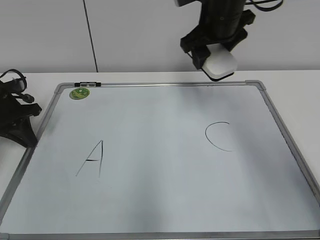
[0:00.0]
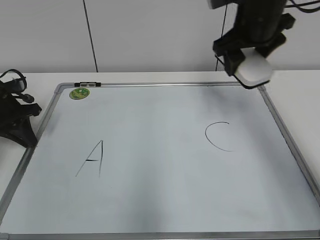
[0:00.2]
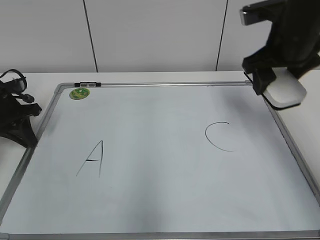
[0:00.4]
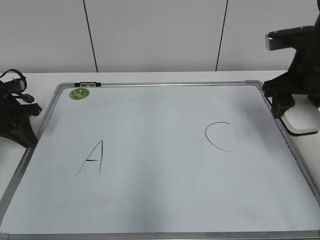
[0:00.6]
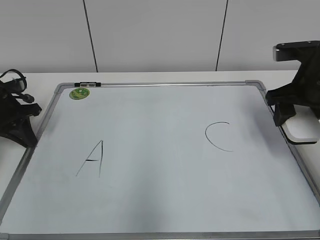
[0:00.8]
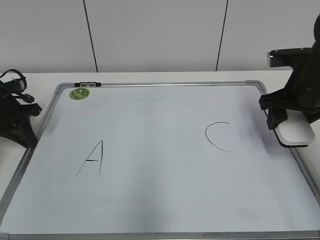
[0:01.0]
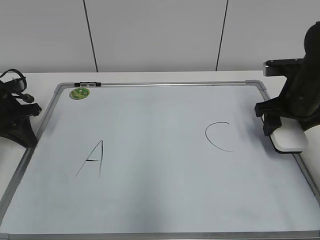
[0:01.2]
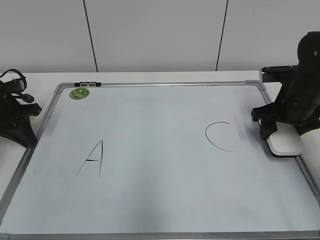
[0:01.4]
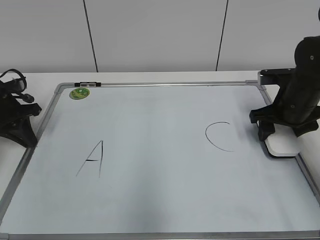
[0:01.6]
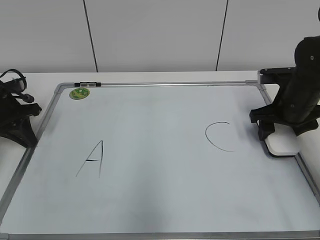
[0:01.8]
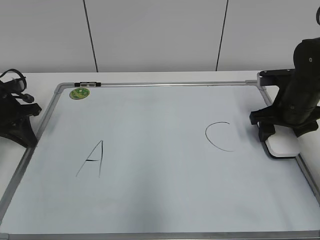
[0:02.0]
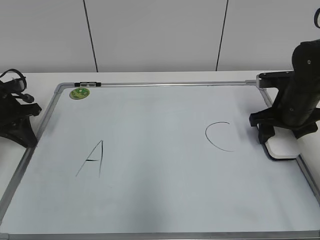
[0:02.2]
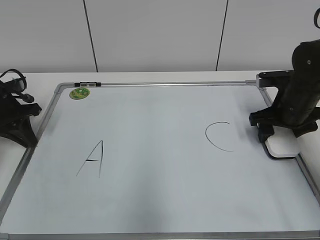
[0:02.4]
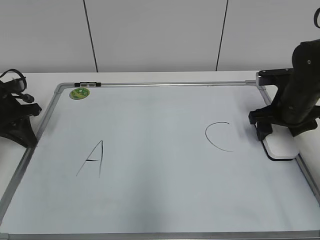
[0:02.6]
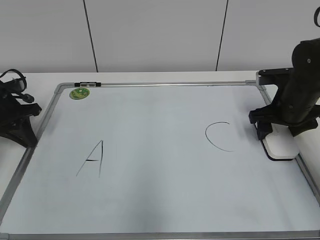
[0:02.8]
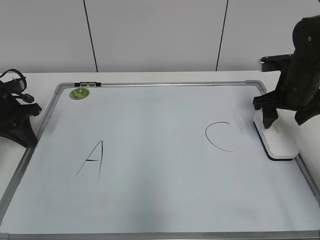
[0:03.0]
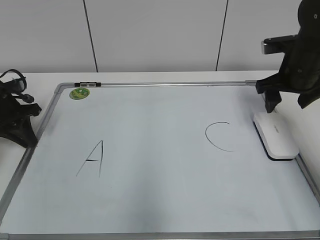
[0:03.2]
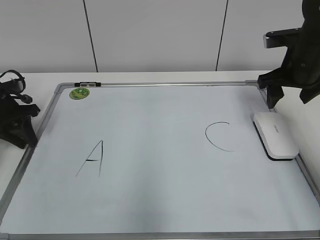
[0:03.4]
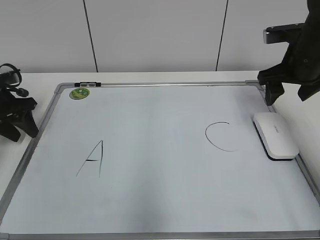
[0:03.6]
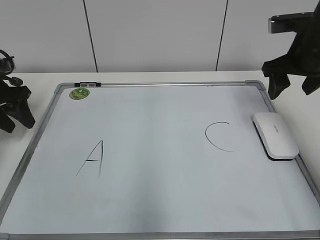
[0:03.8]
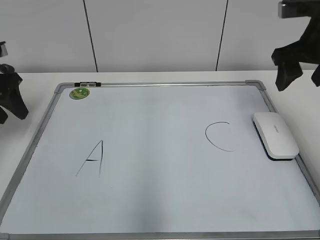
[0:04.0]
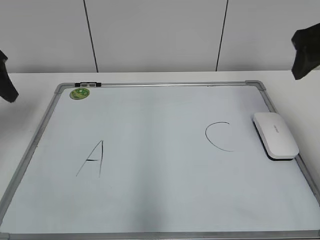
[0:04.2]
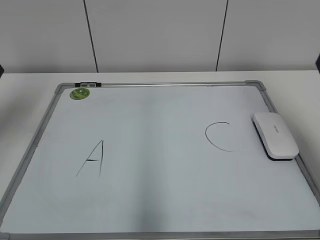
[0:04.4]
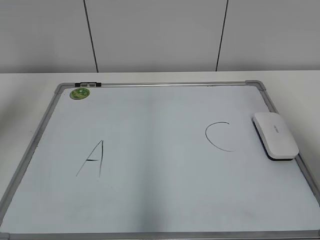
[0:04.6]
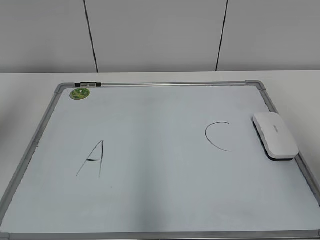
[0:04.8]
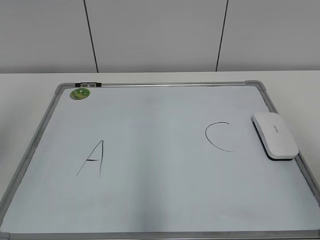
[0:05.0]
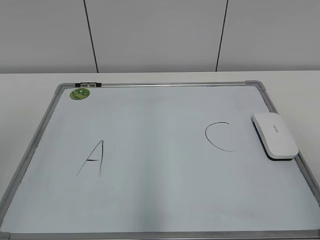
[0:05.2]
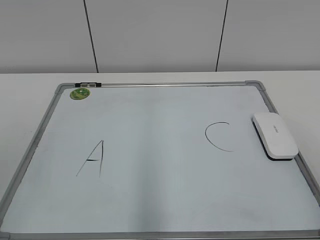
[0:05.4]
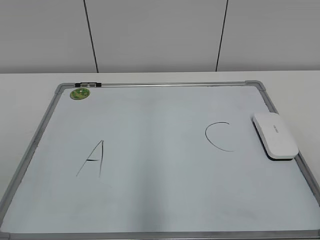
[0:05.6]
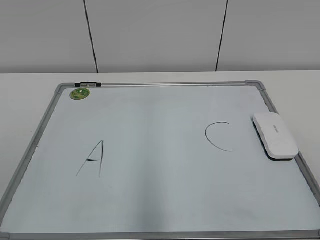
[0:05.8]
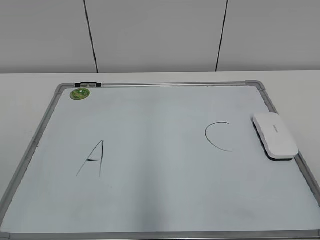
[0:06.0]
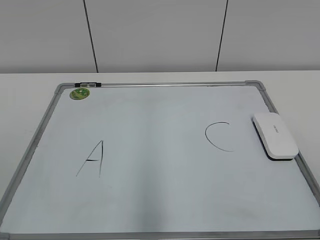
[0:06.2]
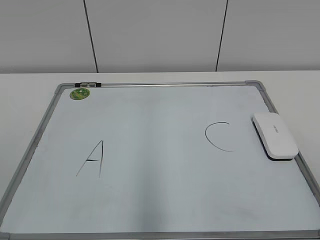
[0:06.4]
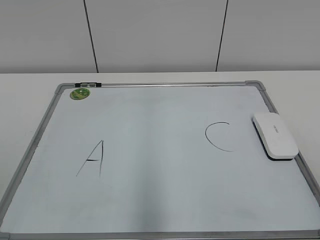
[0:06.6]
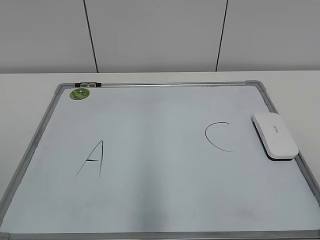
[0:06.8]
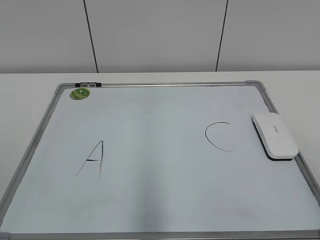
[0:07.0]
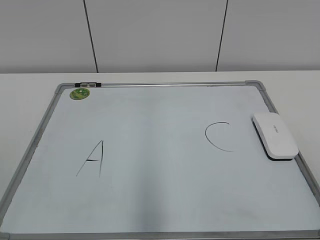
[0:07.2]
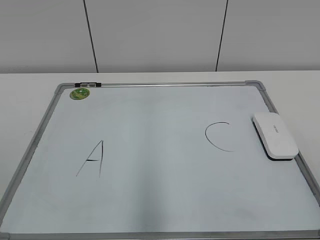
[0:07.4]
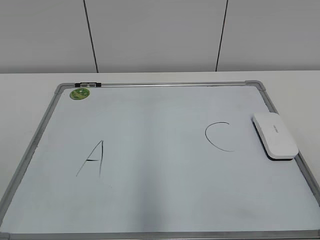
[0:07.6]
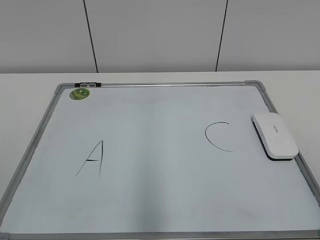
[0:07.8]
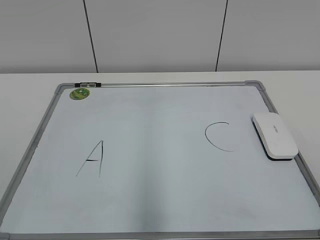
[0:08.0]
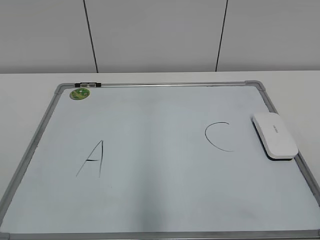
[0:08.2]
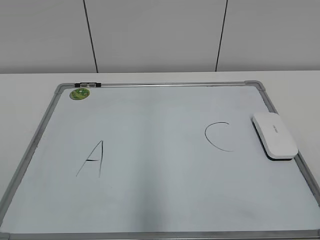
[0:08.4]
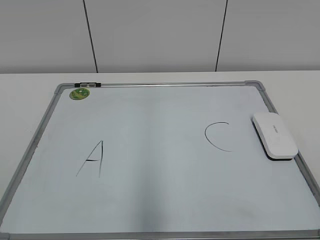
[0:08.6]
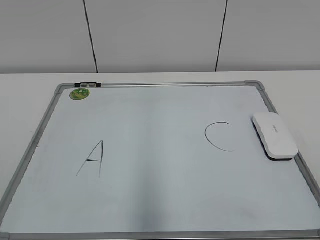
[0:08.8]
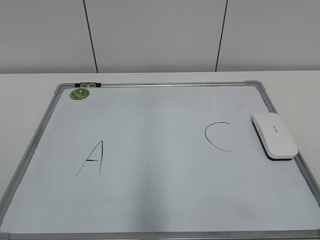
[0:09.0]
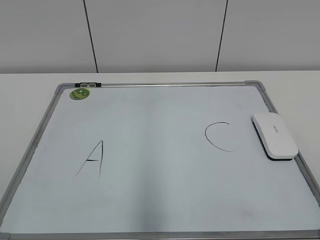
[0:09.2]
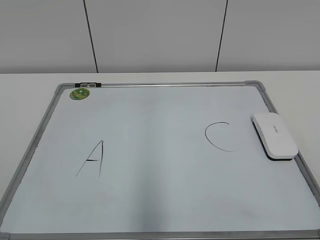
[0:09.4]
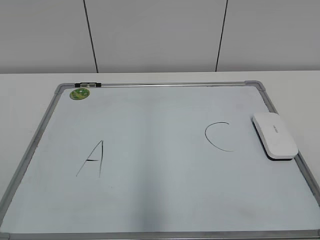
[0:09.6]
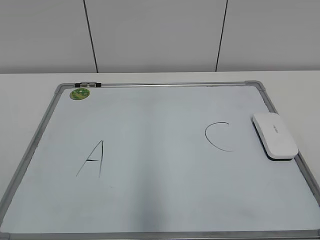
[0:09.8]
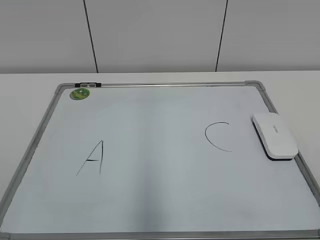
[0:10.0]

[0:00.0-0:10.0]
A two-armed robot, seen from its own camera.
Task of the whole recording: pick up the eraser on the blackboard and erase the letter "B".
Step, 0:00.0 to 0:02.4: Put down the eraser with your right hand.
0:00.0 to 0:01.4: The right gripper heads to the right, downward and backward, covering about 20 cm.
0:01.4 to 0:02.8: The right gripper opens.
0:02.8 to 0:04.2: The two grippers go roughly 15 cm upward. The left gripper opens its fingers.
0:04.2 to 0:05.8: Both grippers move backward, approximately 30 cm.
0:08.6 to 0:10.0: Neither gripper changes place.
